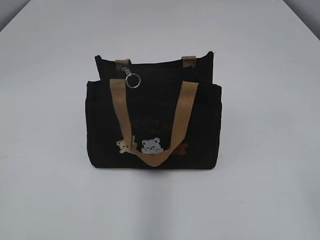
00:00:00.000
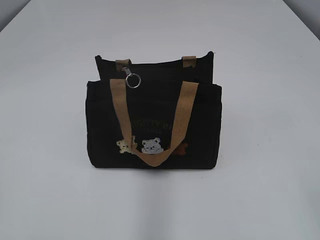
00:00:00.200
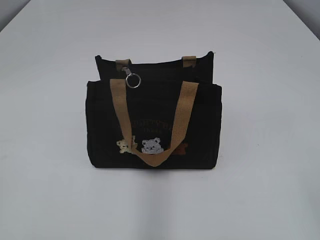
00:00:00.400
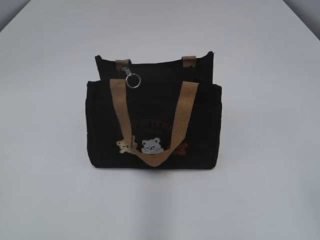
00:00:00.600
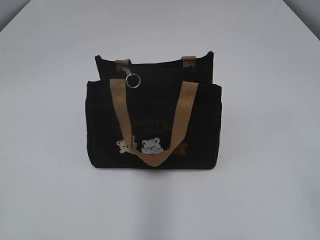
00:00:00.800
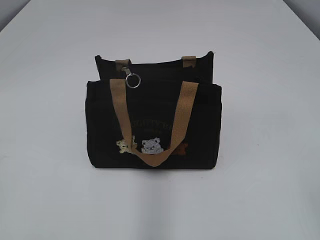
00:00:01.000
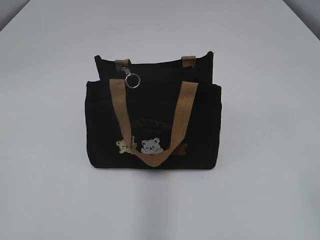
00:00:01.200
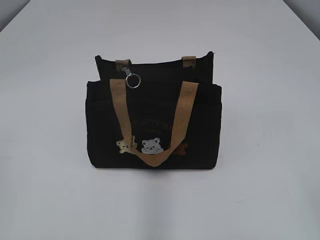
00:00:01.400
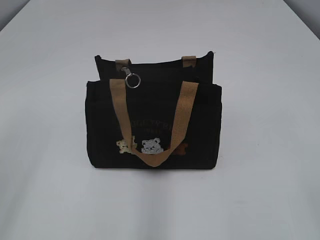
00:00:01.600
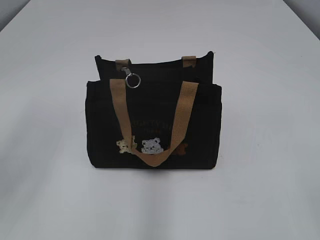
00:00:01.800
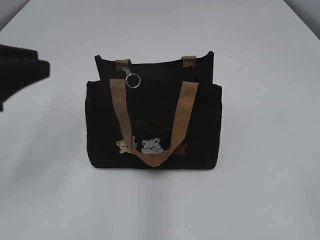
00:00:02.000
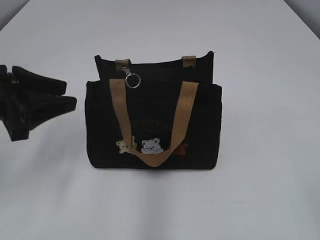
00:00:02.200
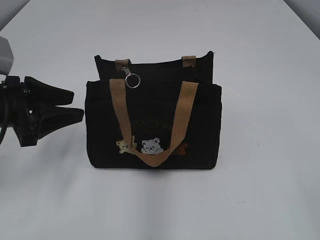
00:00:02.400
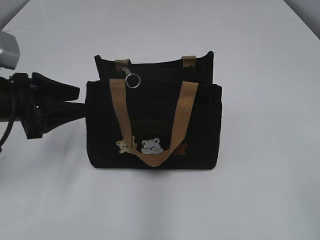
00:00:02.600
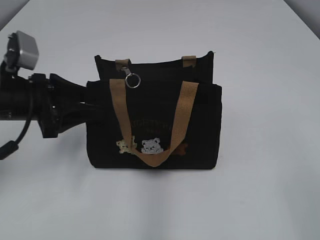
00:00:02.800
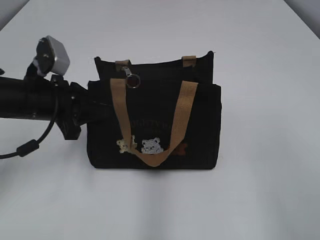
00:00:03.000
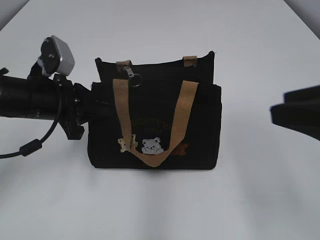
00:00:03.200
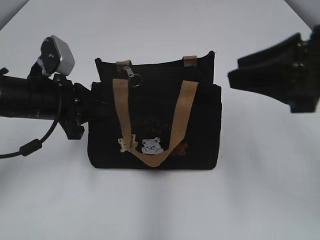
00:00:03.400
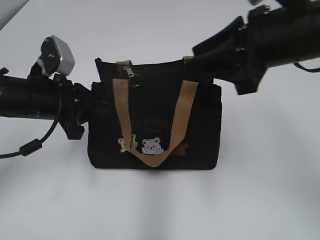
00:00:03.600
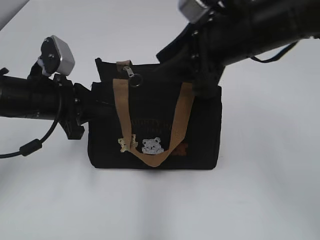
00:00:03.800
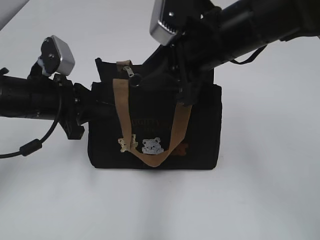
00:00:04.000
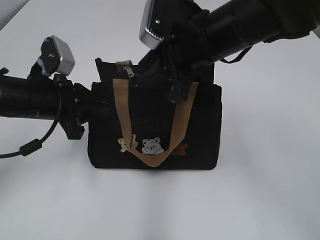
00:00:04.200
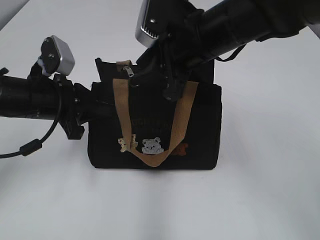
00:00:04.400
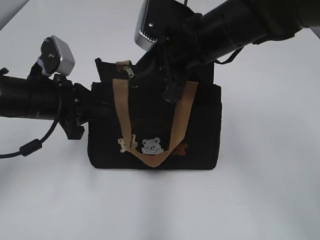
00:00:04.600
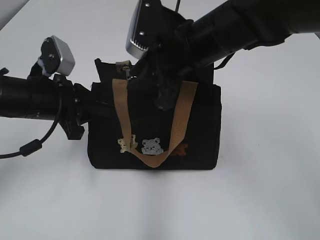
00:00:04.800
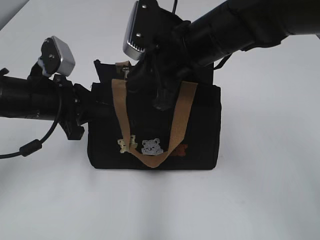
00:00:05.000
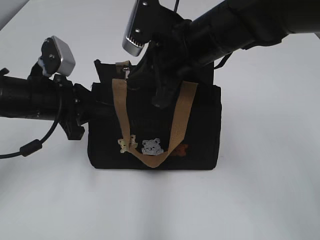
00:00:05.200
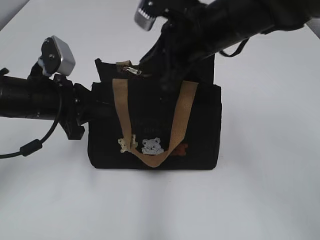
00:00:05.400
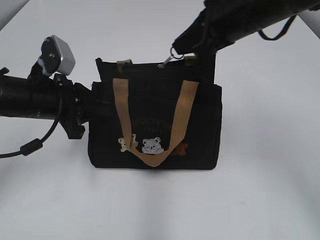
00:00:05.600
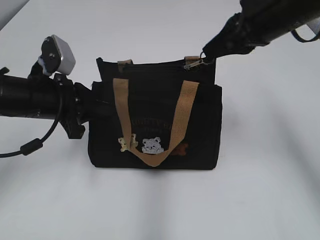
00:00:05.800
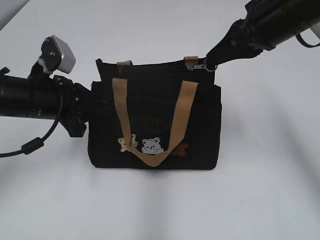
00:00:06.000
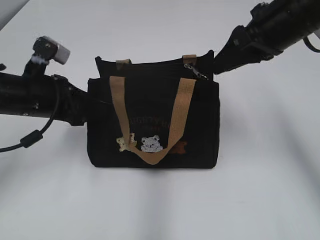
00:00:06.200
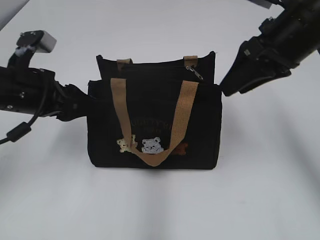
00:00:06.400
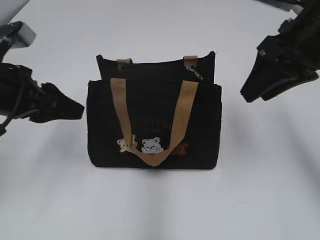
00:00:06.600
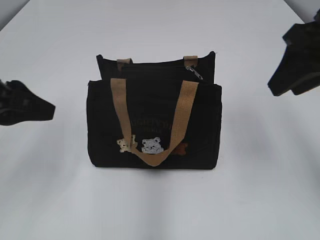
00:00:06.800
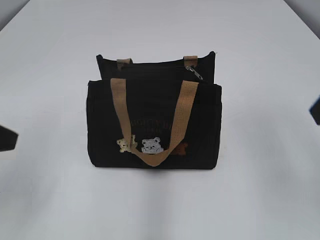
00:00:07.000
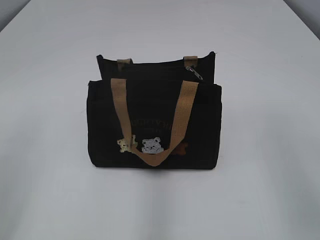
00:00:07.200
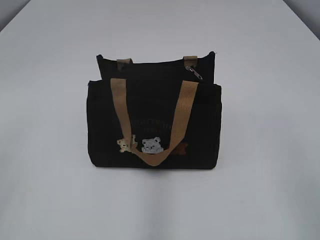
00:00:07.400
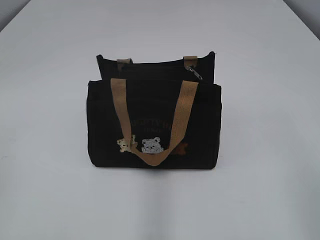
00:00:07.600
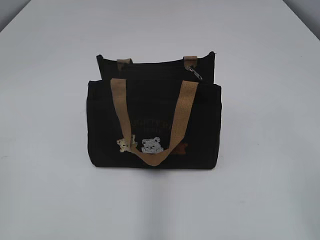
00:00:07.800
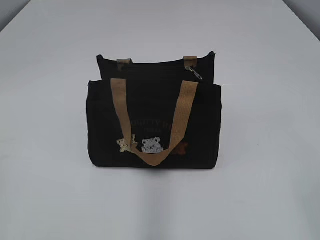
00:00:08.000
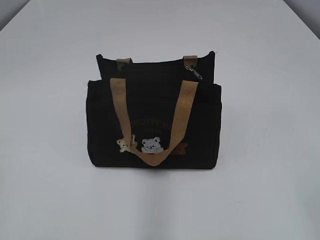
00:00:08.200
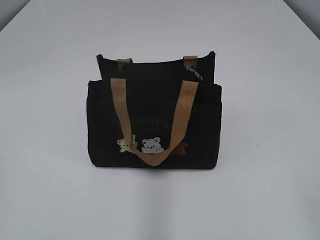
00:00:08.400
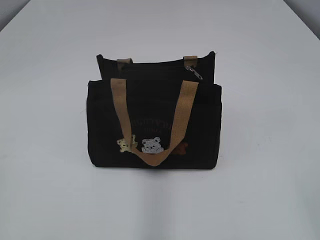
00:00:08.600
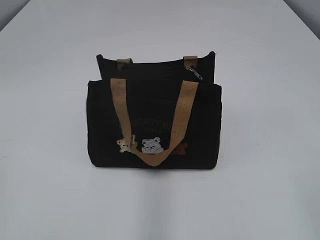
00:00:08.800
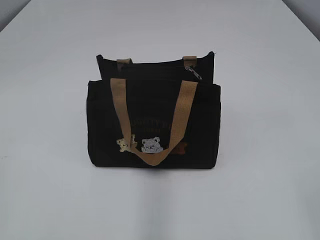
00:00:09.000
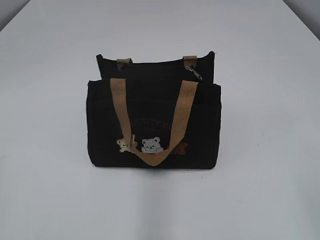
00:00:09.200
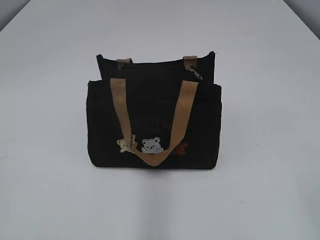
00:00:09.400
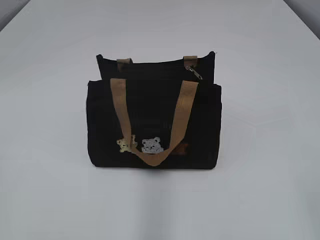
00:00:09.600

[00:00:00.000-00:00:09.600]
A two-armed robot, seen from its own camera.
Step, 00:00:00.000 to 00:00:06.200: Pull open the zipper with your right hand.
00:00:01.600 to 00:00:03.200: The left gripper moves forward, downward and to the right, approximately 30 cm, and closes. Meanwhile the right gripper shifts about 10 cm forward.
00:00:03.200 to 00:00:04.800: The right gripper shifts about 30 cm forward and to the left.
00:00:04.800 to 00:00:06.400: The left gripper opens up. Meanwhile the right gripper moves to the right, some 10 cm, and closes, then reopens.
00:00:06.400 to 00:00:08.000: The right gripper heads backward, covering approximately 30 cm, while the left gripper travels backward and to the left by about 30 cm.

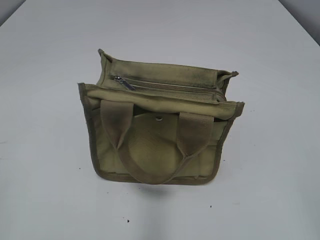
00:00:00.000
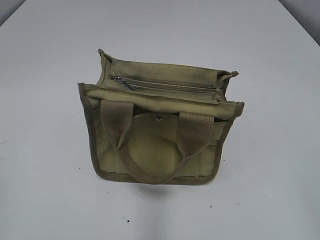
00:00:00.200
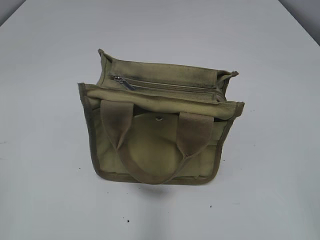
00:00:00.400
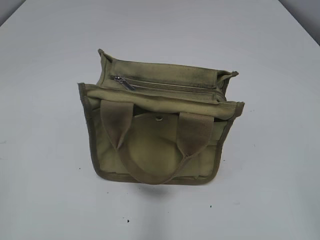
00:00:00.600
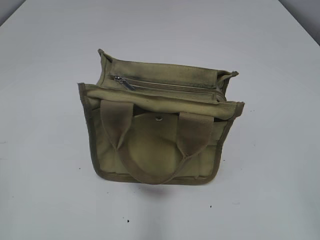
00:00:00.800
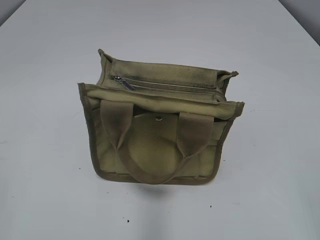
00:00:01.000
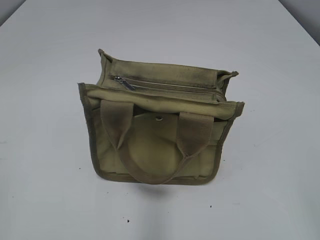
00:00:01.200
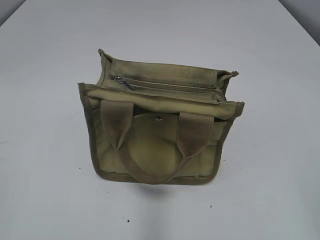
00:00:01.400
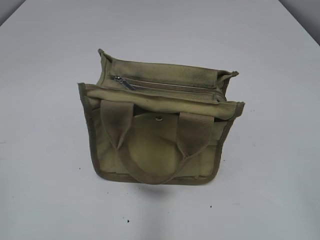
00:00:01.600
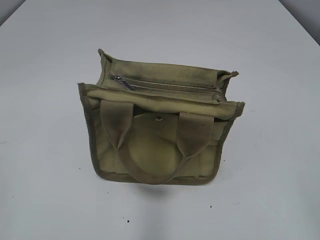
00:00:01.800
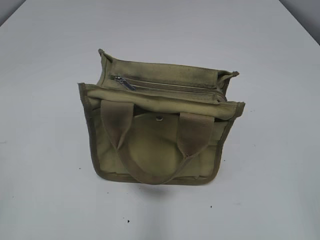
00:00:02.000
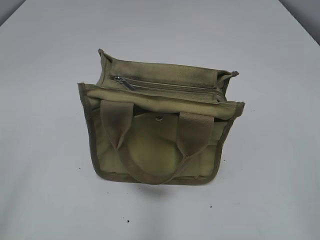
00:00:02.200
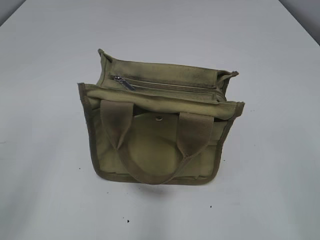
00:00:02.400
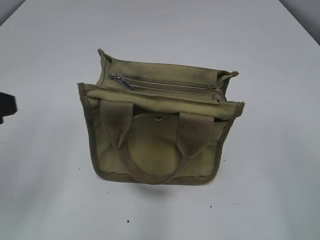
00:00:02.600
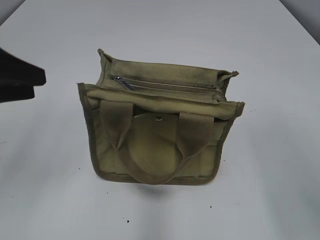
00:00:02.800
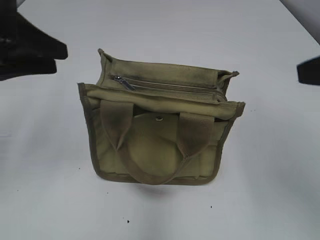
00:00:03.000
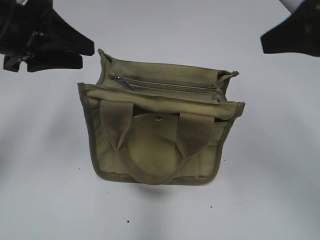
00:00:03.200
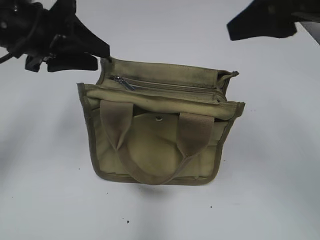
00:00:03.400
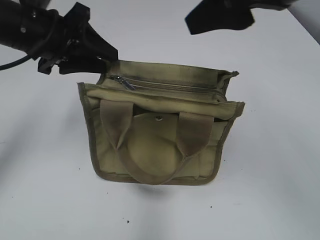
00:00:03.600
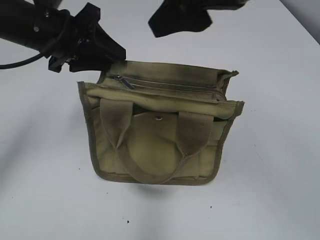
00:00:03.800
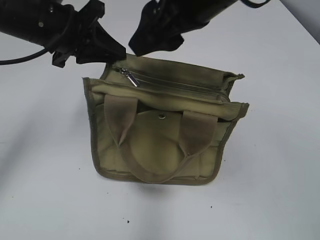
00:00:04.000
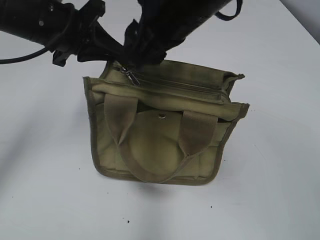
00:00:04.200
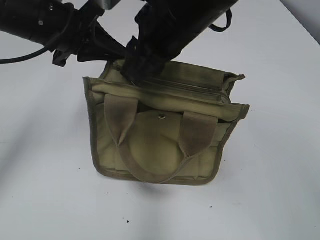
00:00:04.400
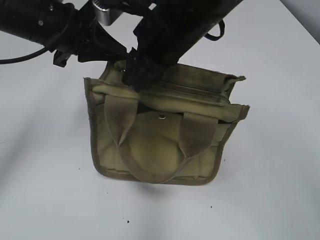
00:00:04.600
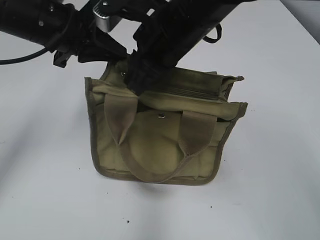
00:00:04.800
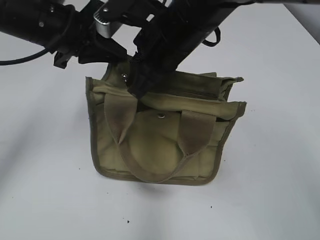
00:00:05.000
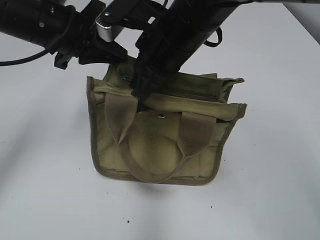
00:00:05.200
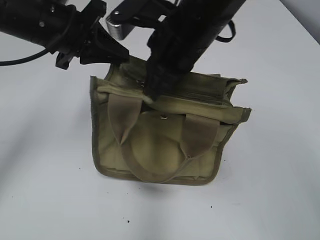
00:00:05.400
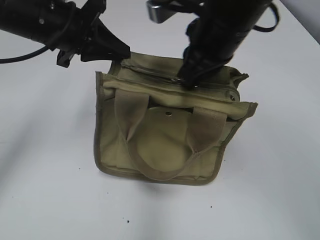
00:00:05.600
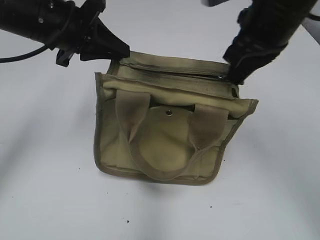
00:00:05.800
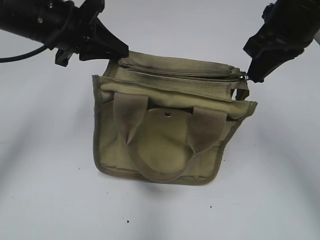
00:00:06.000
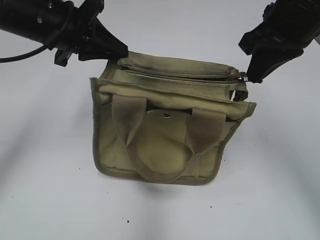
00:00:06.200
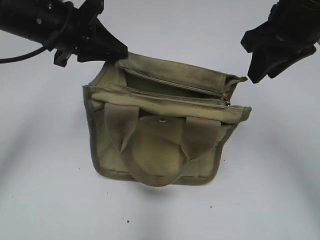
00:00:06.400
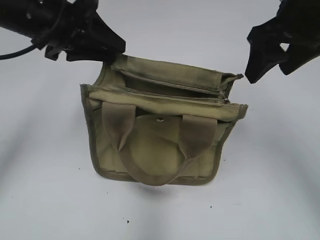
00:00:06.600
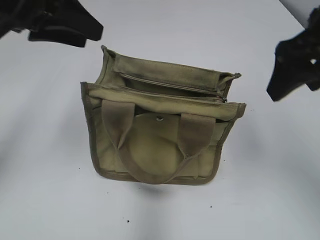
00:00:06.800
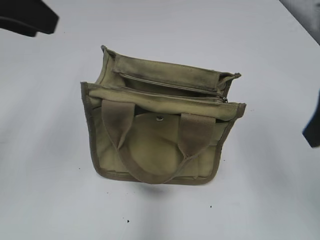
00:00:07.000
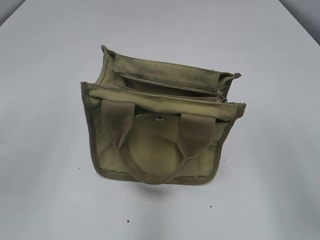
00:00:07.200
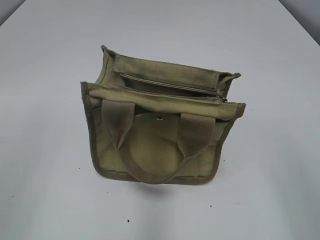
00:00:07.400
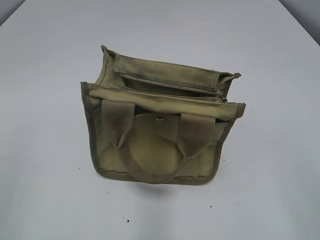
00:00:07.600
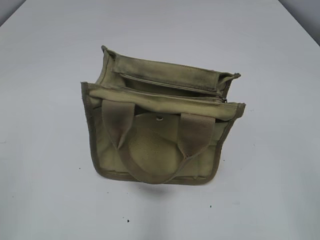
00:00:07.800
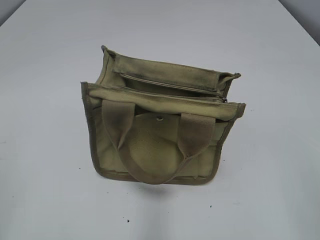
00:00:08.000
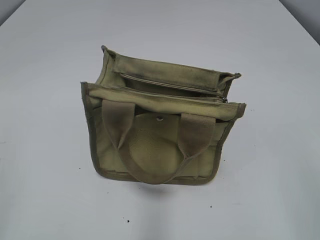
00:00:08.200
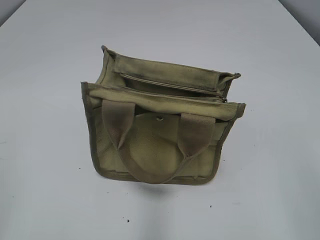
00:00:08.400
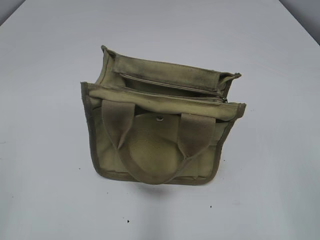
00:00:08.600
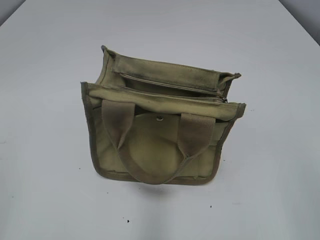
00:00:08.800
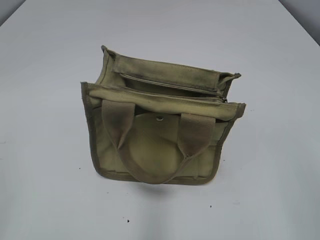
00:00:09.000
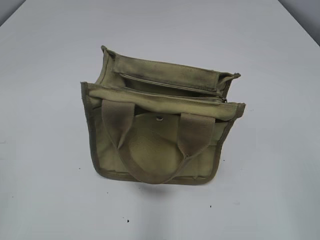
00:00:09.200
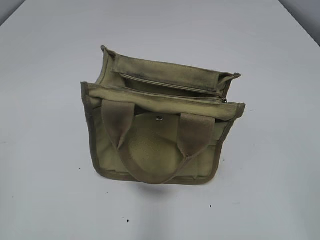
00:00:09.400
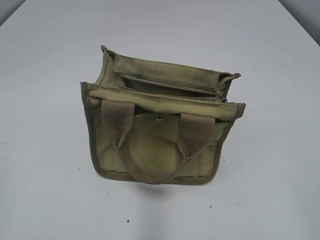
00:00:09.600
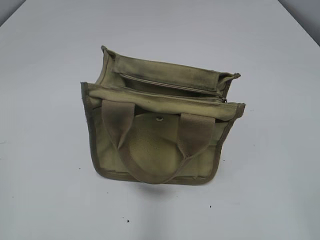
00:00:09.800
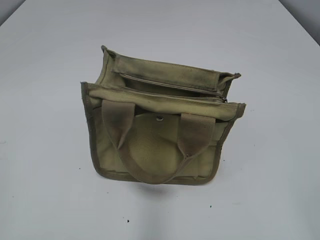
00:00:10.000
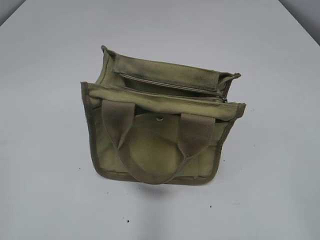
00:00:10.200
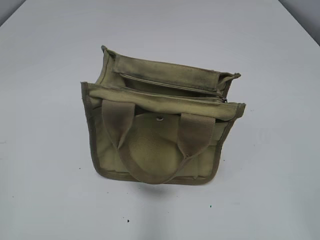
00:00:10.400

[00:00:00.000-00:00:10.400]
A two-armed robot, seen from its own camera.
Step, 00:00:00.000 to 00:00:06.400: Pull open the zipper with your right hand.
00:00:01.400 to 00:00:03.000: Both grippers move forward, about 20 cm.
00:00:03.000 to 00:00:04.400: The left gripper is displaced forward and to the right by roughly 10 cm, and closes its fingers. Meanwhile the right gripper heads to the left and forward, covering approximately 25 cm, and closes.
00:00:04.400 to 00:00:06.000: The right gripper shifts about 15 cm to the right, and closes its fingers.
00:00:06.000 to 00:00:07.400: The right gripper moves backward, some 25 cm, and opens up; the left gripper moves backward and to the left, roughly 25 cm, and opens up.

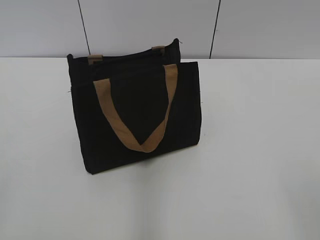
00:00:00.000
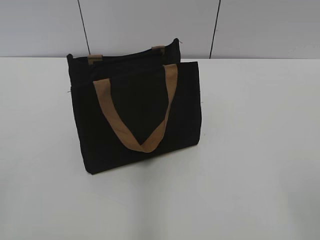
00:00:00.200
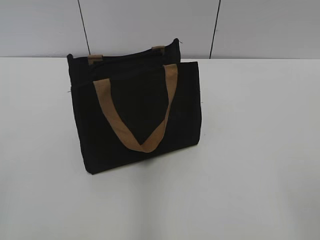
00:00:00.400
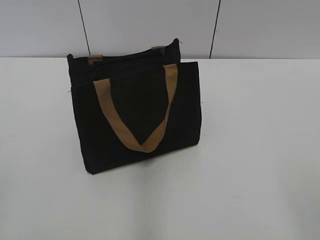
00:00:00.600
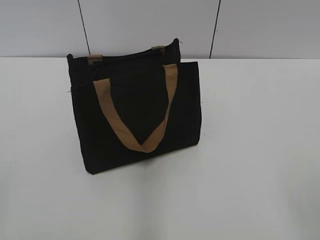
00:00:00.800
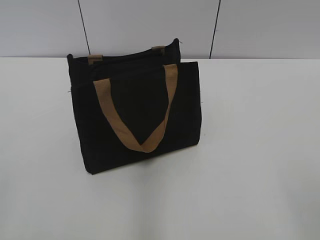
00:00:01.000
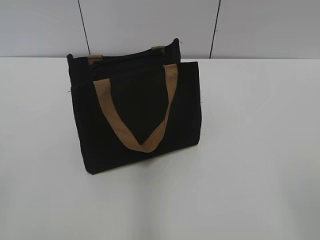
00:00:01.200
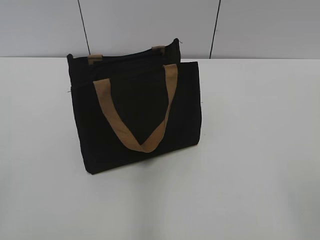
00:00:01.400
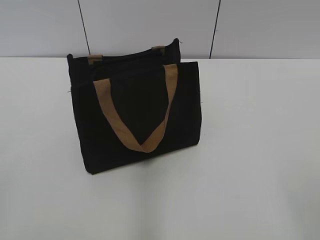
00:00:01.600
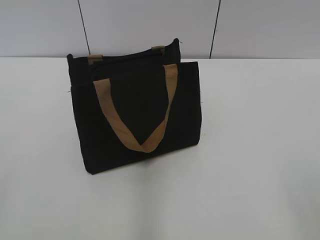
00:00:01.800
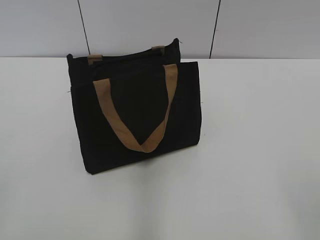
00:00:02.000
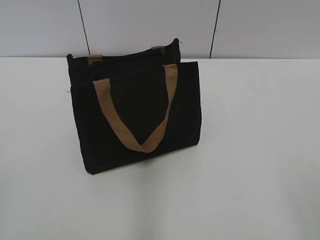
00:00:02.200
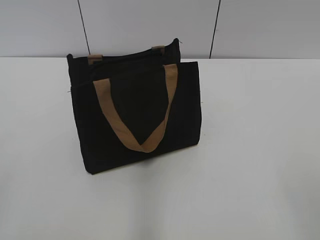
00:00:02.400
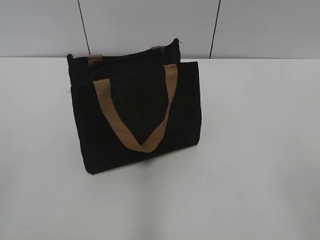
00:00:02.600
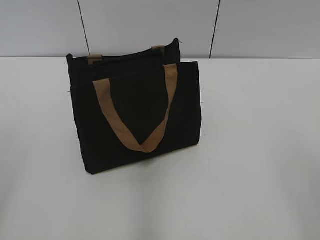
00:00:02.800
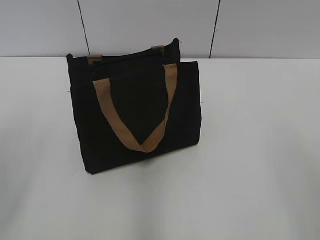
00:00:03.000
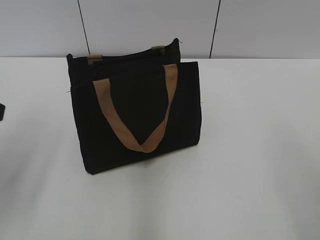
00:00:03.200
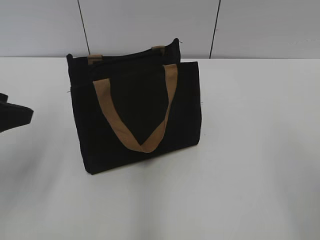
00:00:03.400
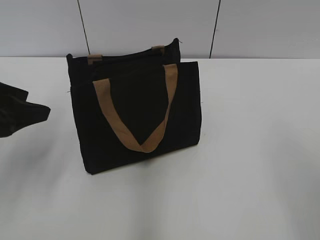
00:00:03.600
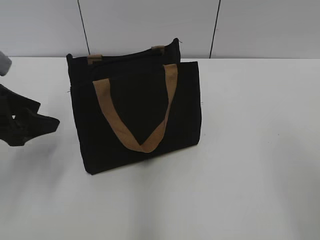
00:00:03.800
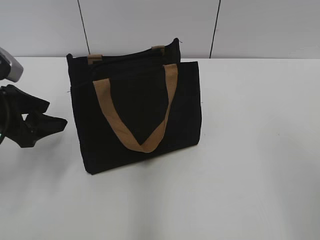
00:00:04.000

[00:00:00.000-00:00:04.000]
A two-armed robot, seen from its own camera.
00:00:02.600 to 00:00:04.000: The left gripper travels forward and downward by roughly 25 cm.
